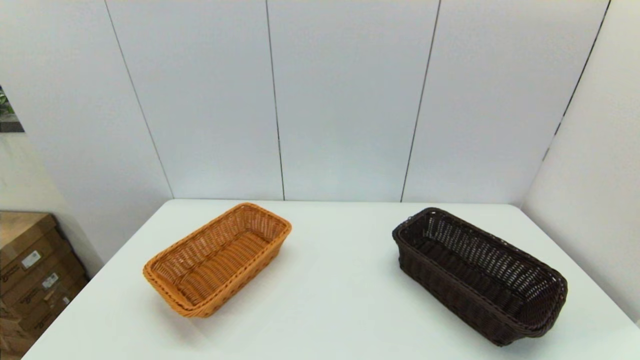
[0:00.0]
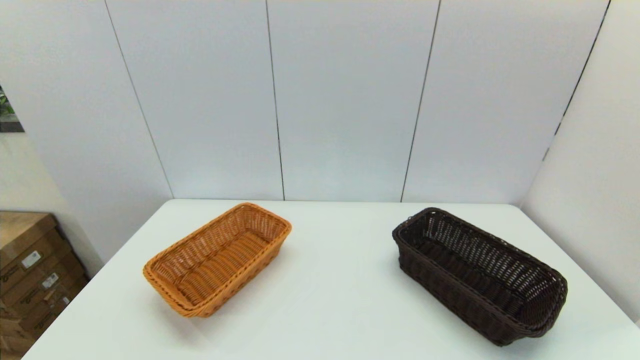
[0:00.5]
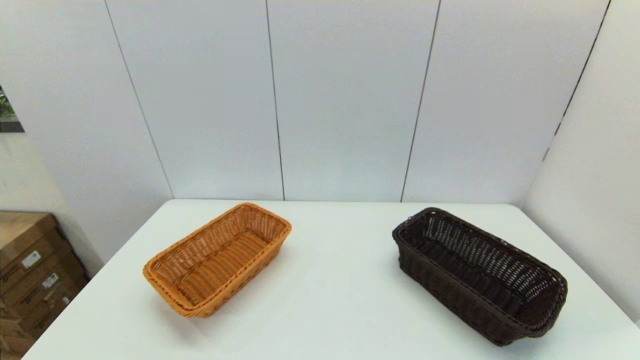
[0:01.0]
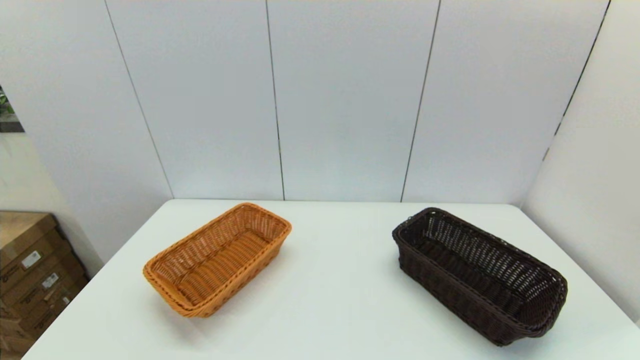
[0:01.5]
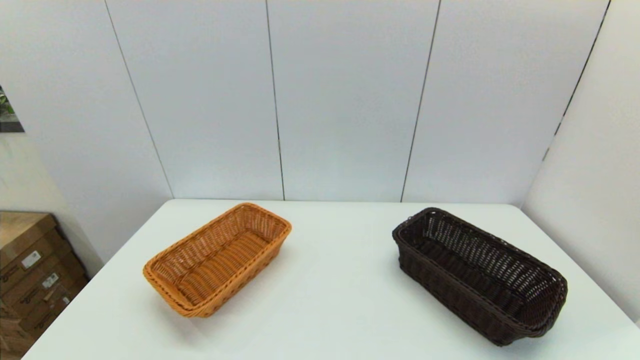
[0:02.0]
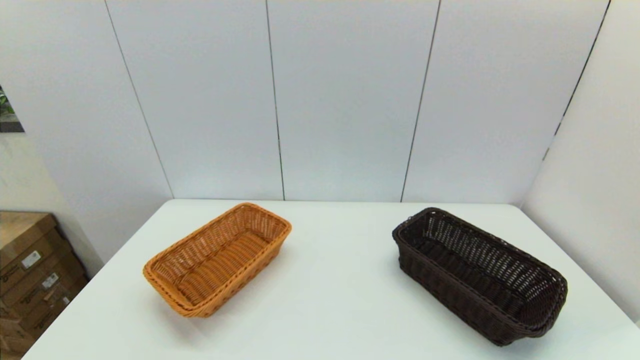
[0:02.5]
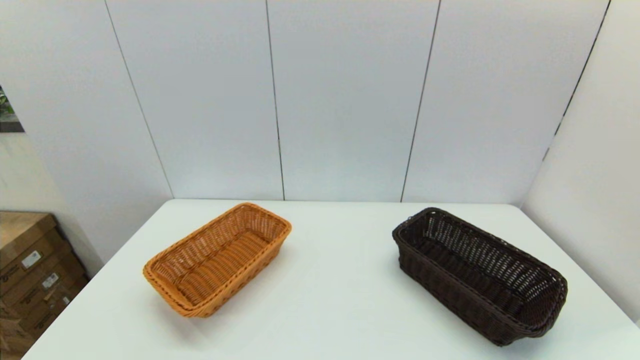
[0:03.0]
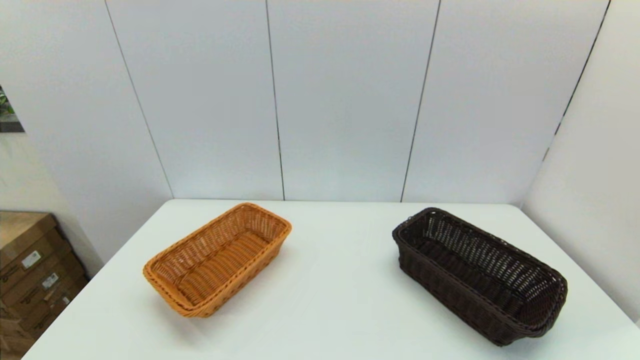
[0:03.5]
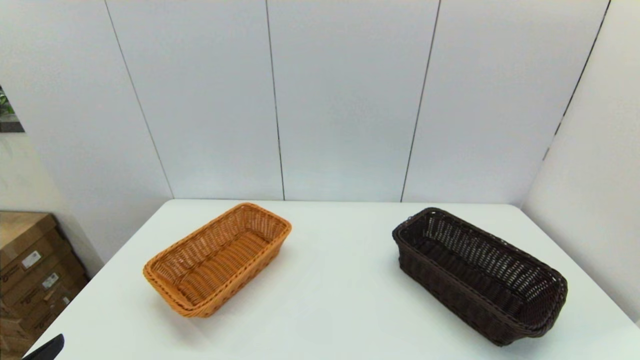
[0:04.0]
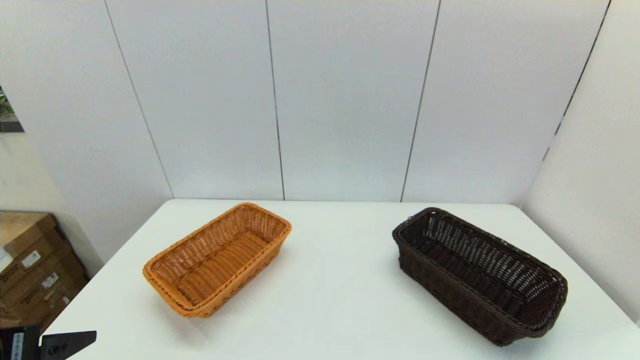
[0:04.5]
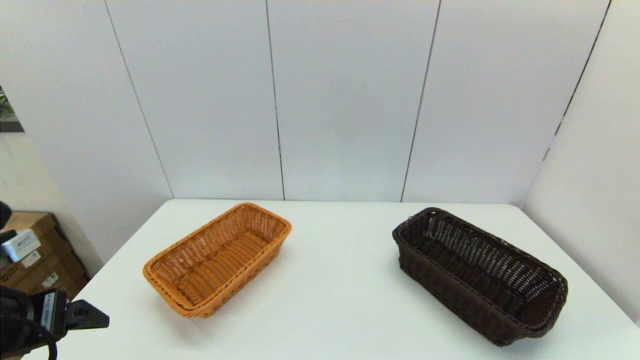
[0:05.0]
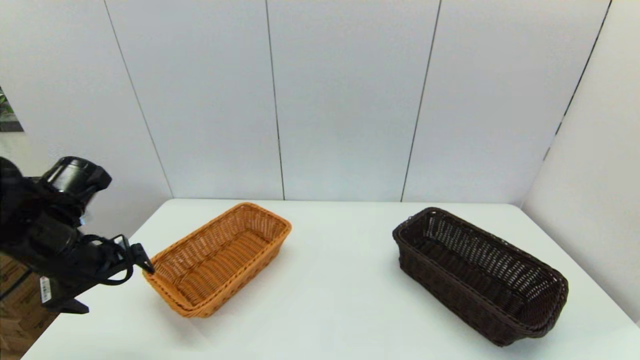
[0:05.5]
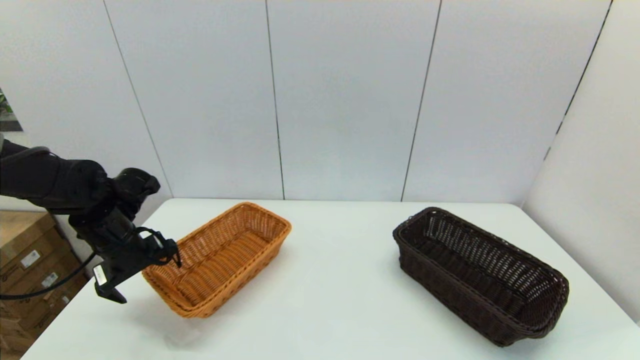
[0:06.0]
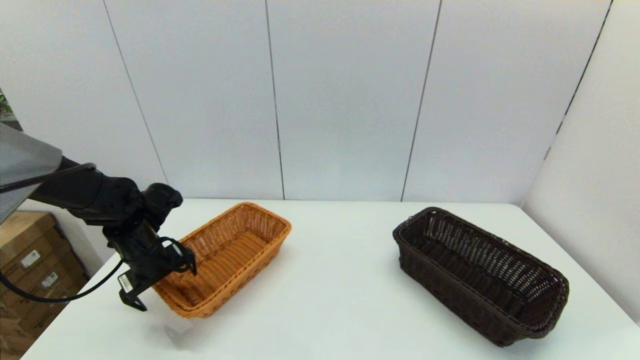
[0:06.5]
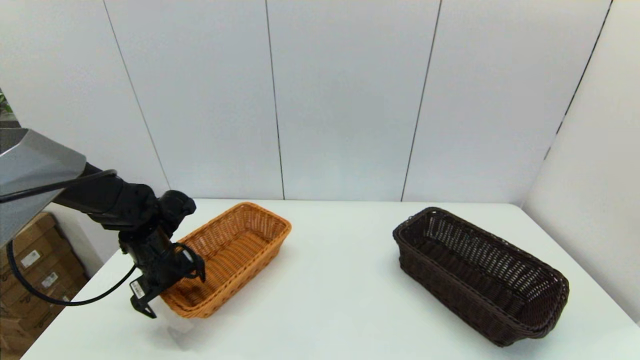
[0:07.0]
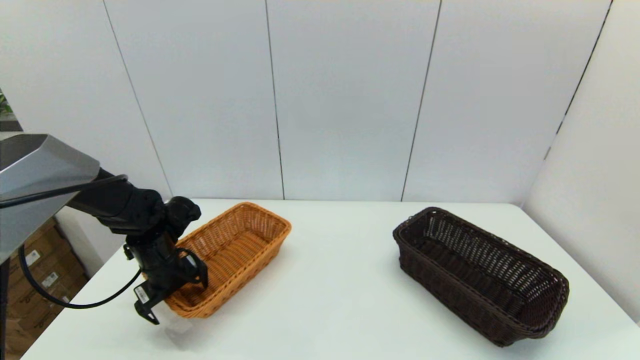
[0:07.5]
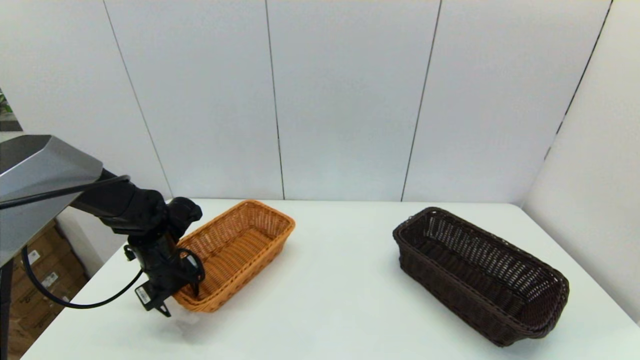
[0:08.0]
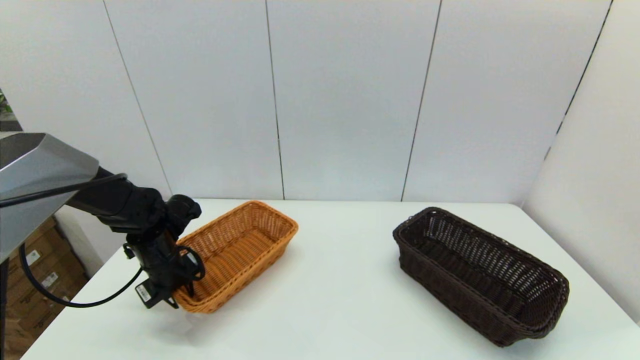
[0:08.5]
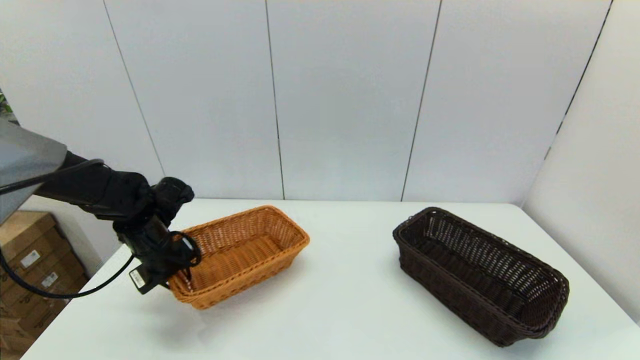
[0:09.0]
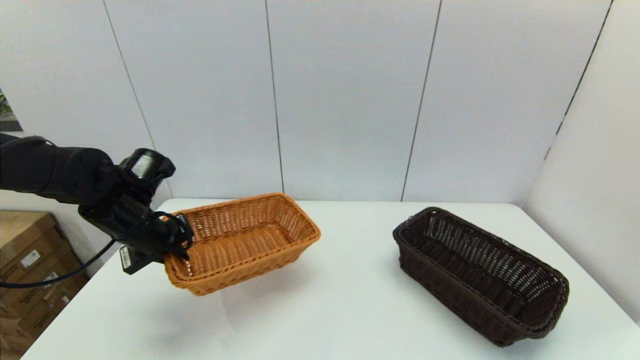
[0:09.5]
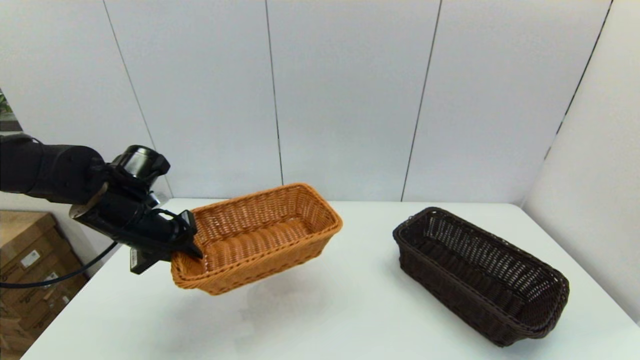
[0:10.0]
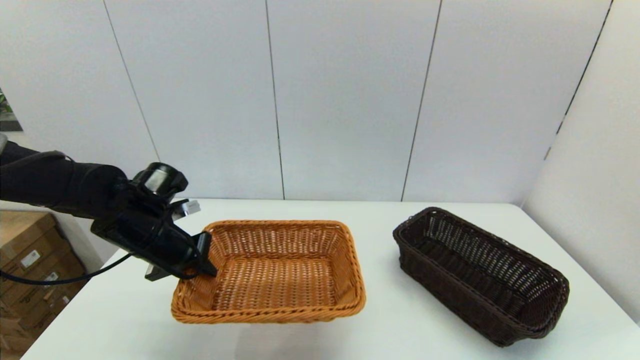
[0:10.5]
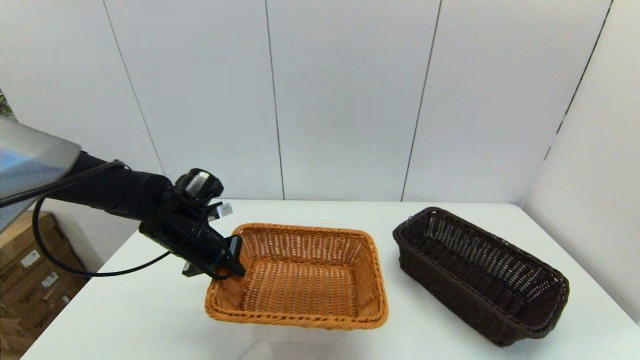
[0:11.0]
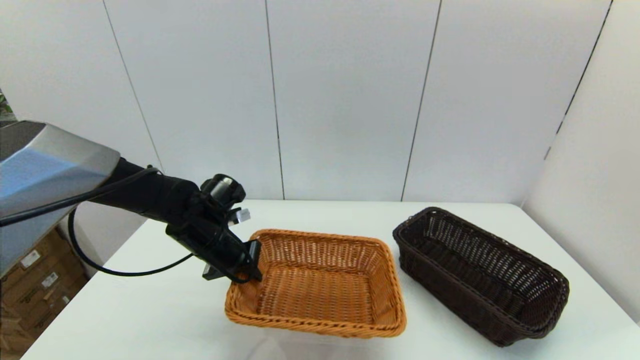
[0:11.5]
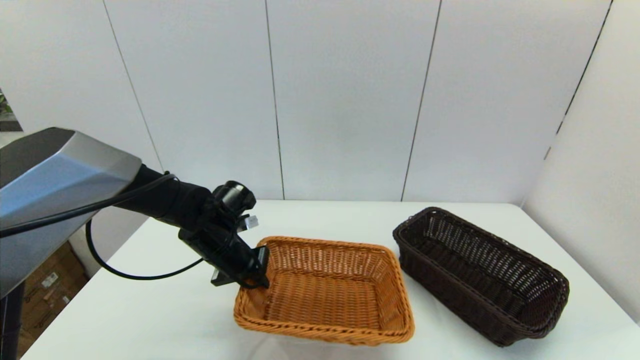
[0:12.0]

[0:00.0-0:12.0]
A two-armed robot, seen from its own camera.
Task of the whole recording: stack a basket on top of another basket.
Step, 4.0 to 8.5 s: Grasp the light basket with the left gripper.
0.0 to 2.0 s: Neither gripper changes place.
4.0 to 6.0 s: The left gripper is displaced forward by some 30 cm.
6.0 to 8.0 s: The left gripper is displaced downward by roughly 5 cm, and closes its fingers.
8.0 to 10.0 s: The left gripper is displaced upward by roughly 10 cm, and closes.
10.0 to 12.0 s: The left gripper goes some 15 cm to the right and downward.

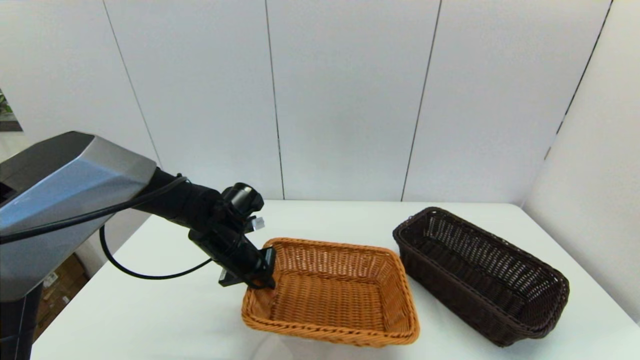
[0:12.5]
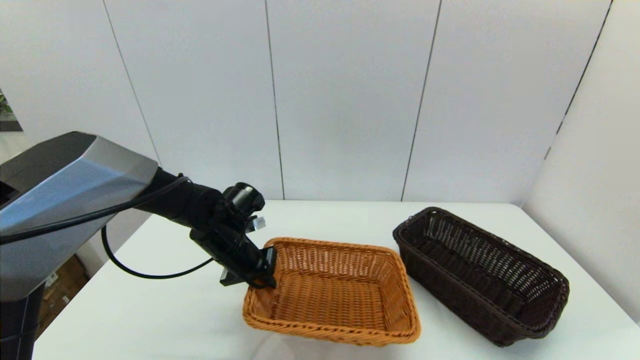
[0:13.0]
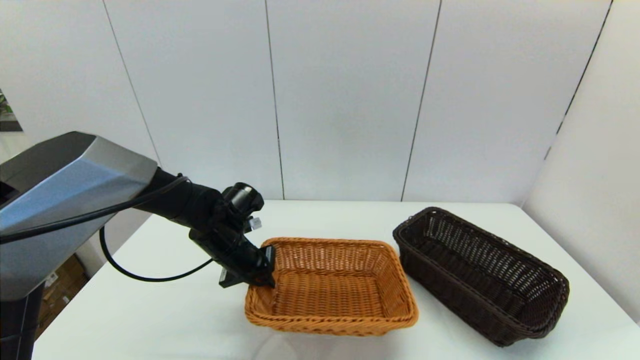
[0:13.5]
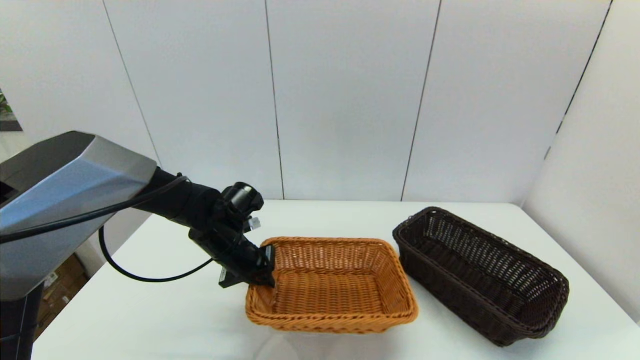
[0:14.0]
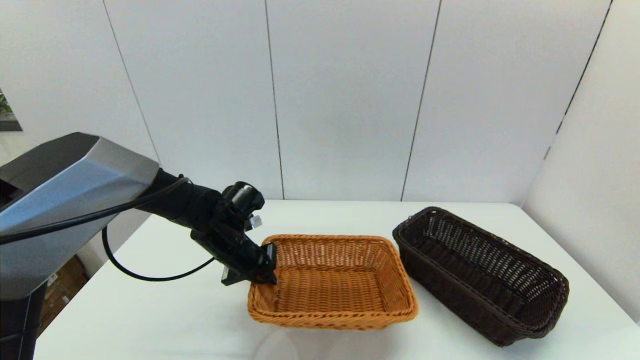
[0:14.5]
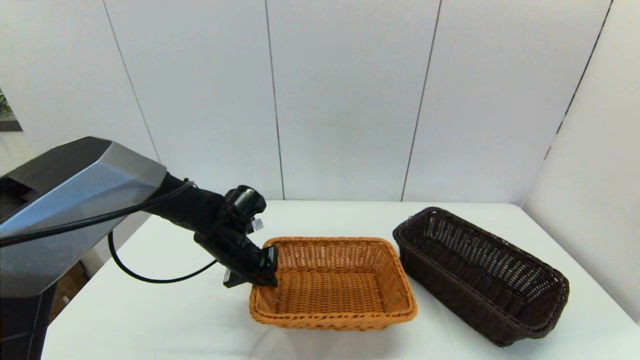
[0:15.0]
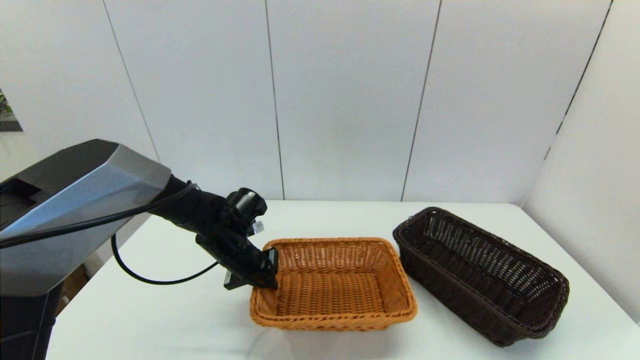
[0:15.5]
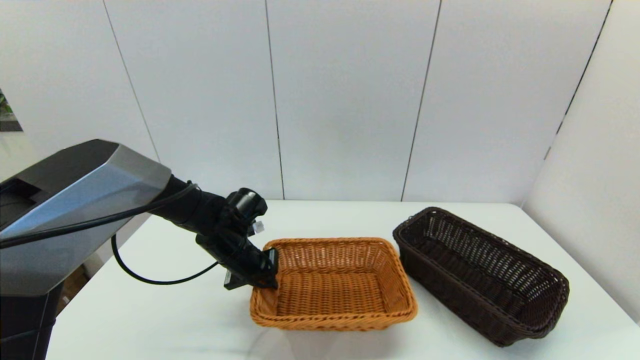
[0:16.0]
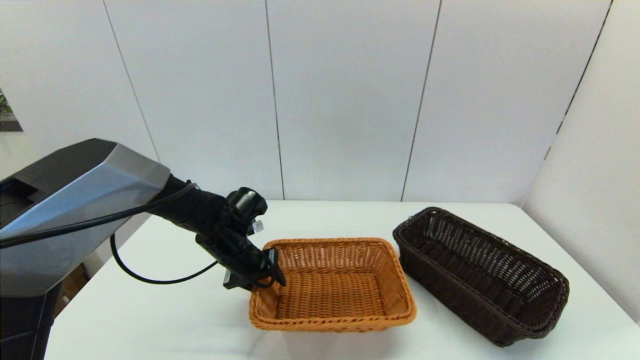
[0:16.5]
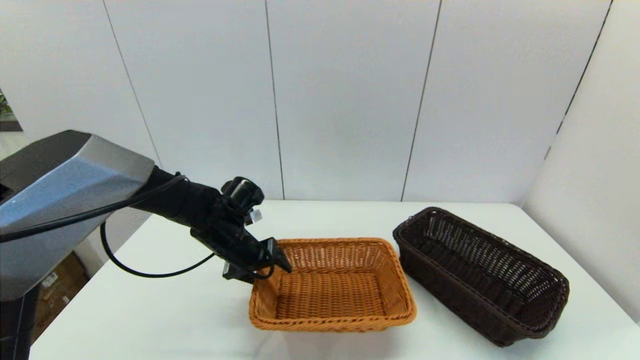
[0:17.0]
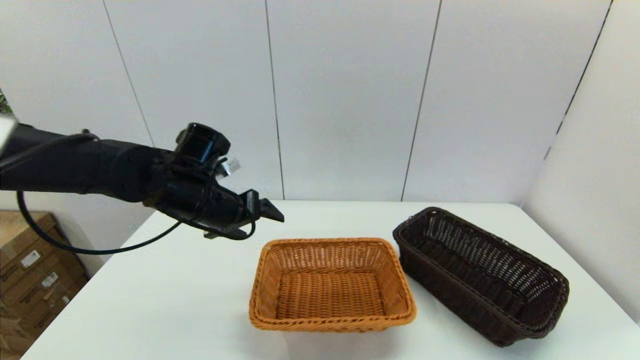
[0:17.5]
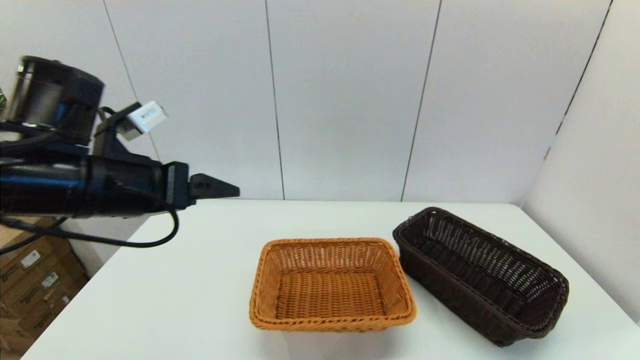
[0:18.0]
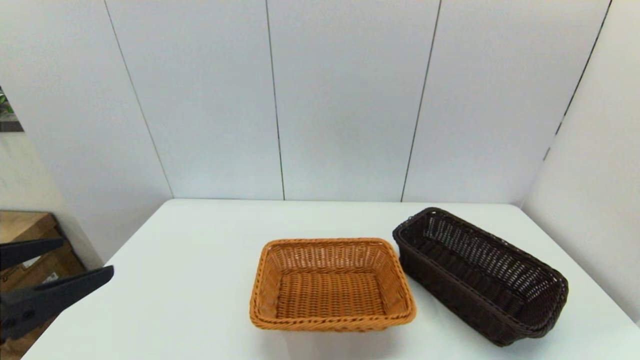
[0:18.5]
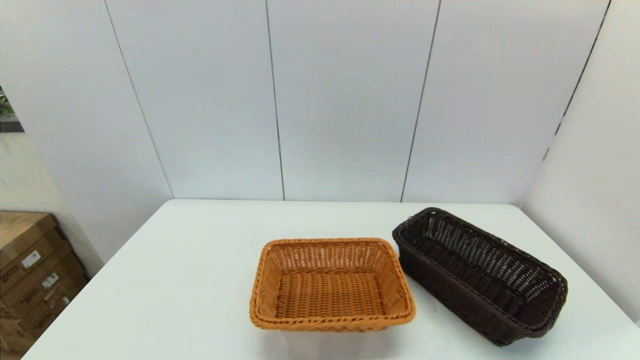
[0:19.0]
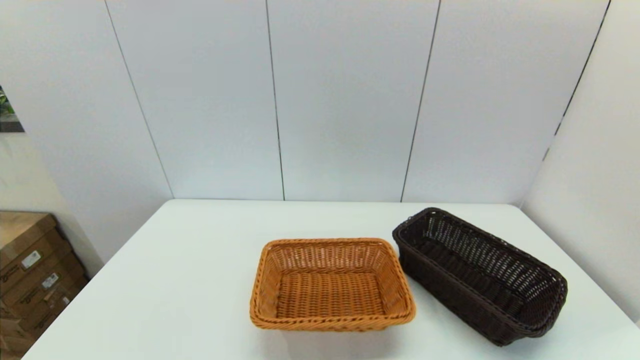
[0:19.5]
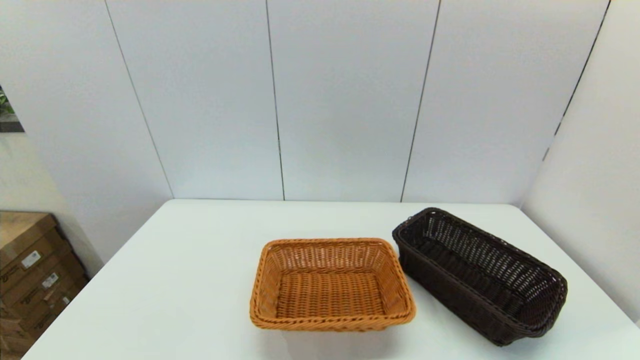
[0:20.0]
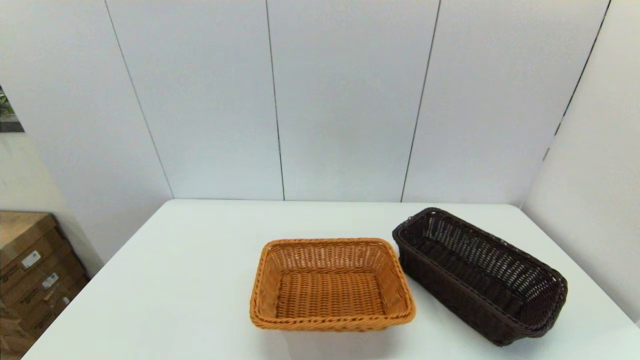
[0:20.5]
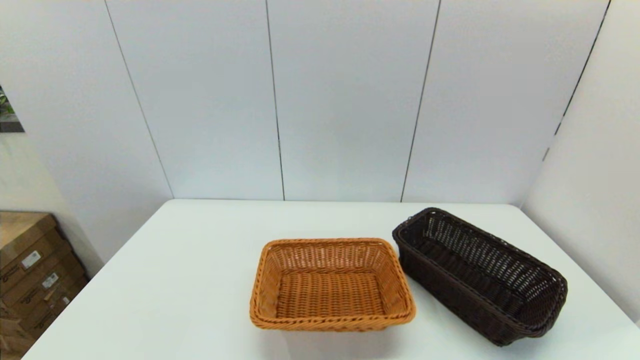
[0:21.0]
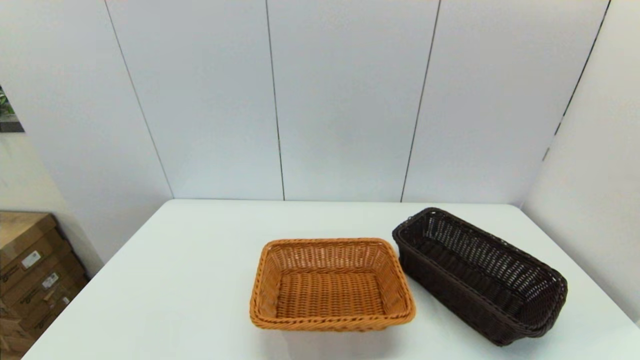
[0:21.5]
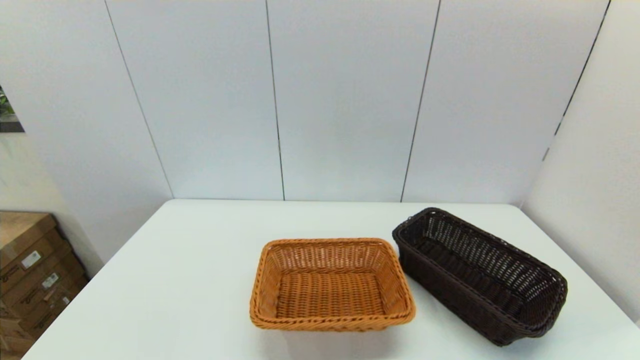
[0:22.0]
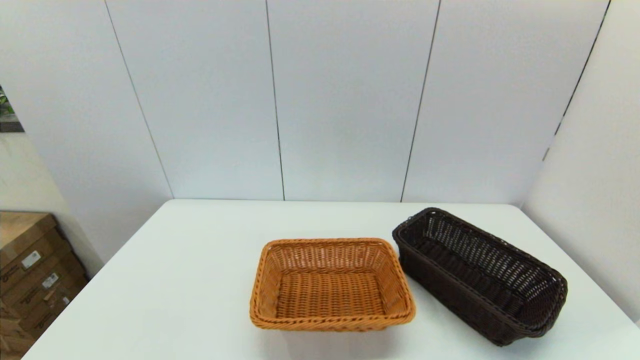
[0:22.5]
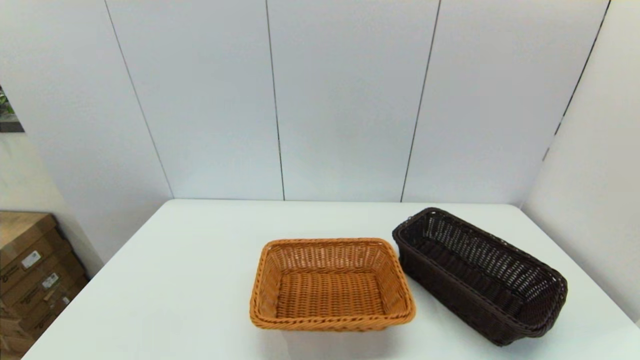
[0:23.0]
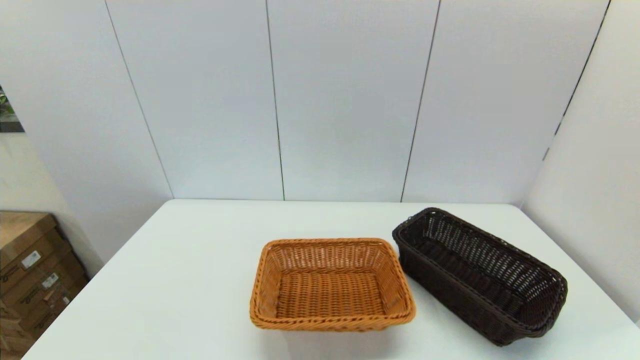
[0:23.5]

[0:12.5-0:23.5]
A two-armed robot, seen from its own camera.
Task of the whole recording: stack a basket on top of another basket.
Step, 12.5 to 17.0 s: Place the light basket on the middle of the table with the left gripper.
12.5 to 16.0 s: The grippers make only small movements.
16.0 to 18.0 s: The left gripper goes approximately 25 cm upward and backward, and opens its fingers.
18.0 to 20.0 s: The left gripper travels backward and downward by approximately 30 cm.
21.5 to 23.5 s: Both grippers stay about where they are.
